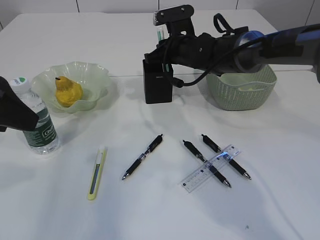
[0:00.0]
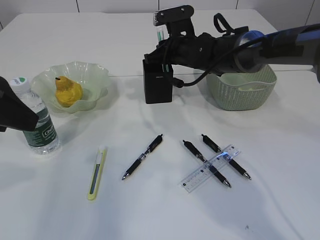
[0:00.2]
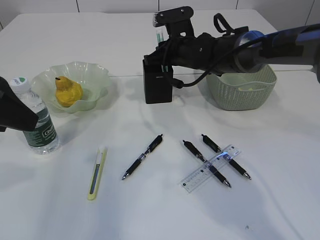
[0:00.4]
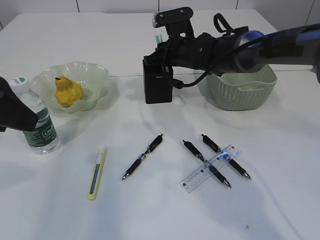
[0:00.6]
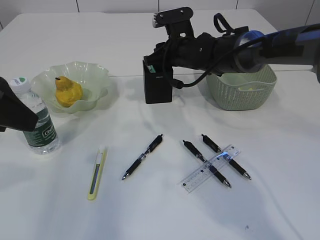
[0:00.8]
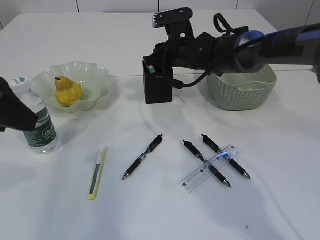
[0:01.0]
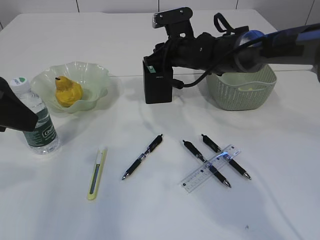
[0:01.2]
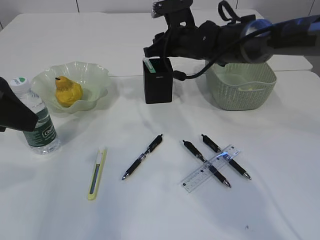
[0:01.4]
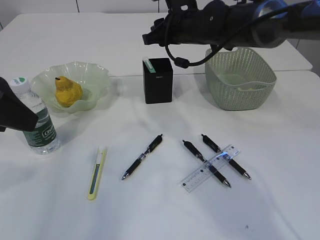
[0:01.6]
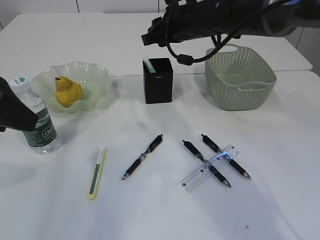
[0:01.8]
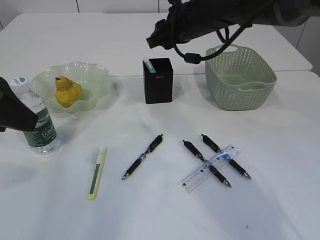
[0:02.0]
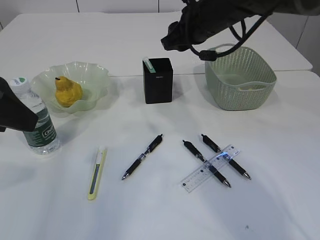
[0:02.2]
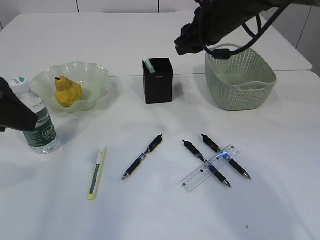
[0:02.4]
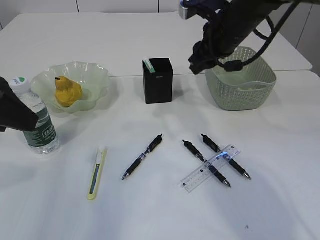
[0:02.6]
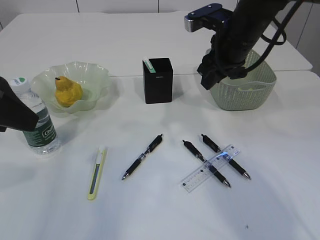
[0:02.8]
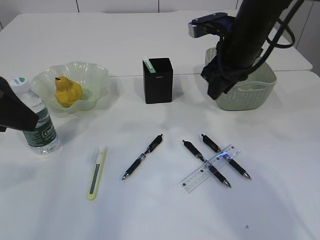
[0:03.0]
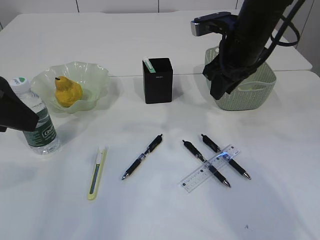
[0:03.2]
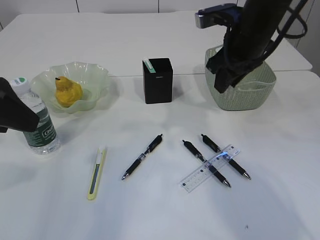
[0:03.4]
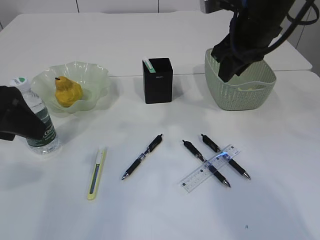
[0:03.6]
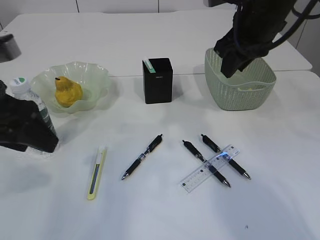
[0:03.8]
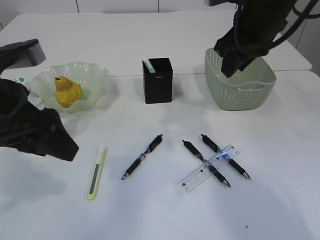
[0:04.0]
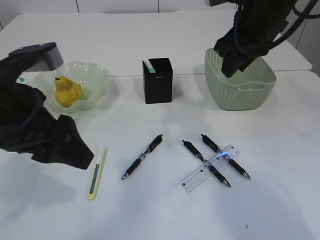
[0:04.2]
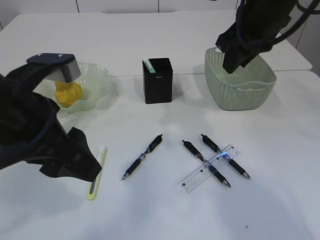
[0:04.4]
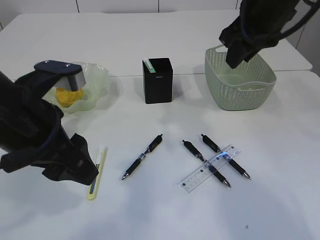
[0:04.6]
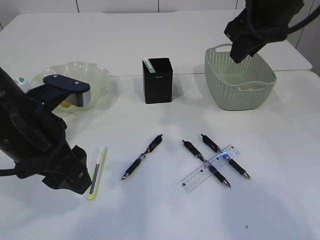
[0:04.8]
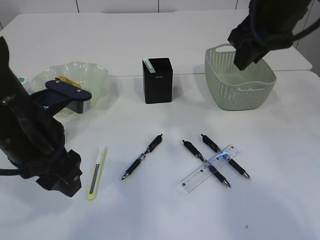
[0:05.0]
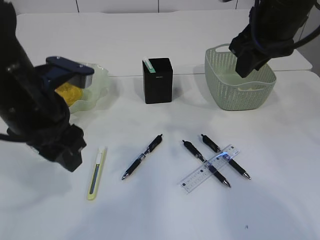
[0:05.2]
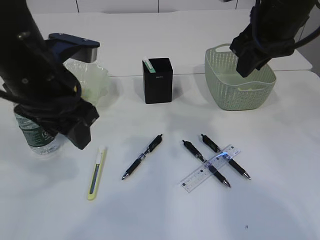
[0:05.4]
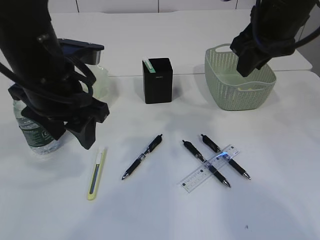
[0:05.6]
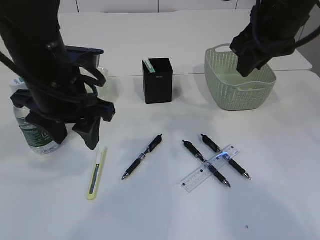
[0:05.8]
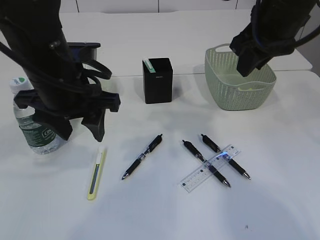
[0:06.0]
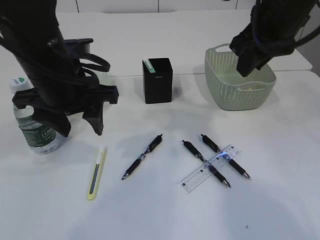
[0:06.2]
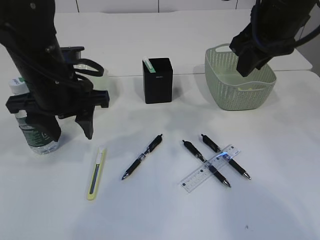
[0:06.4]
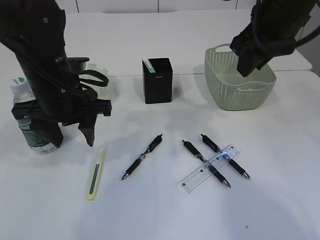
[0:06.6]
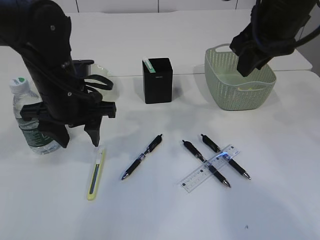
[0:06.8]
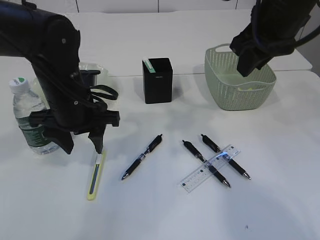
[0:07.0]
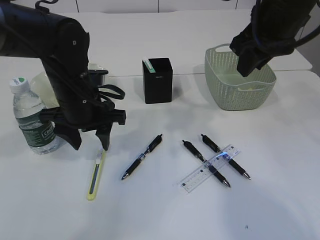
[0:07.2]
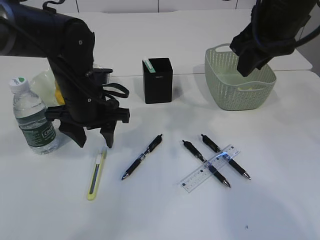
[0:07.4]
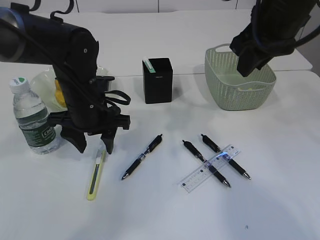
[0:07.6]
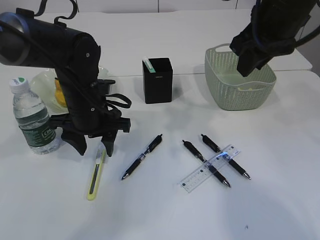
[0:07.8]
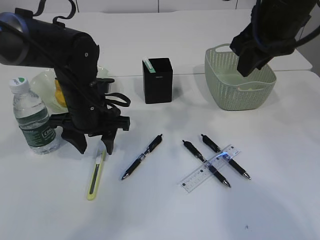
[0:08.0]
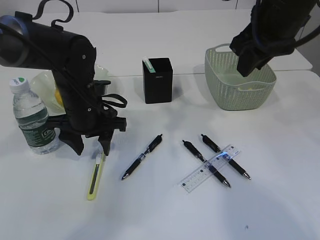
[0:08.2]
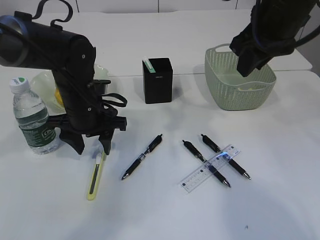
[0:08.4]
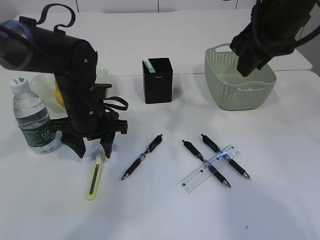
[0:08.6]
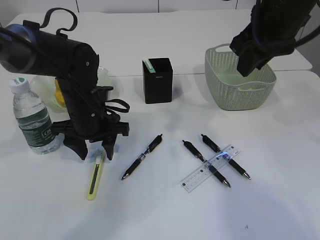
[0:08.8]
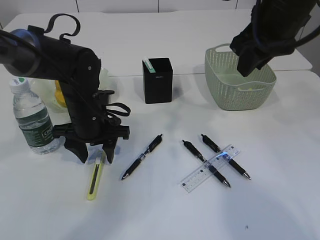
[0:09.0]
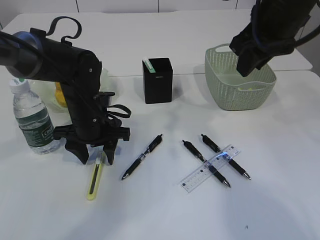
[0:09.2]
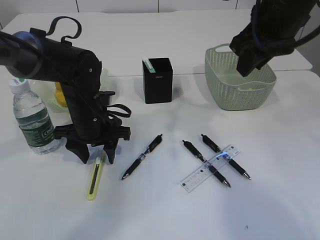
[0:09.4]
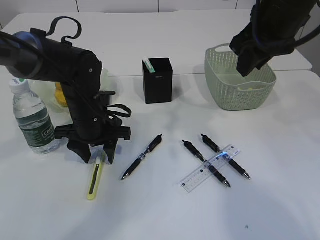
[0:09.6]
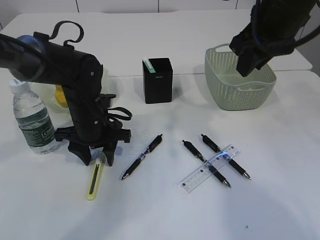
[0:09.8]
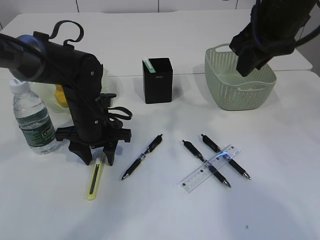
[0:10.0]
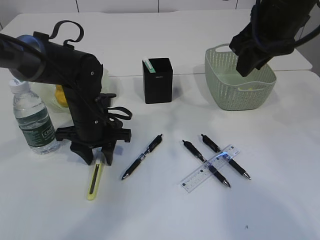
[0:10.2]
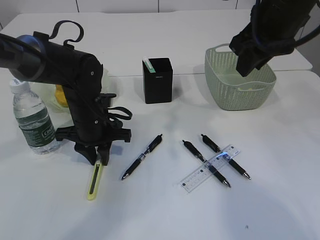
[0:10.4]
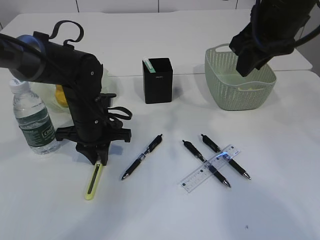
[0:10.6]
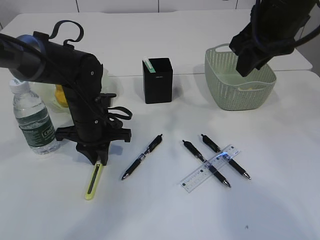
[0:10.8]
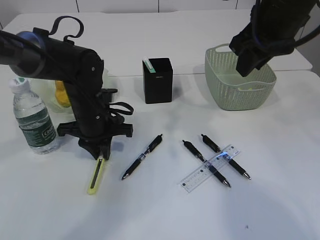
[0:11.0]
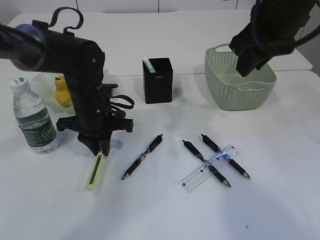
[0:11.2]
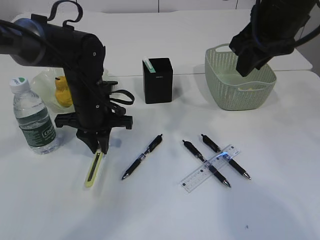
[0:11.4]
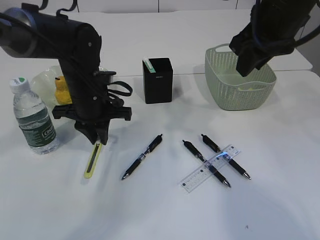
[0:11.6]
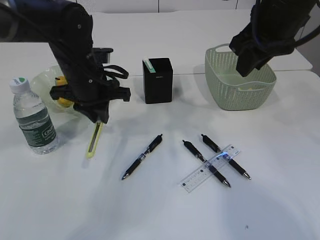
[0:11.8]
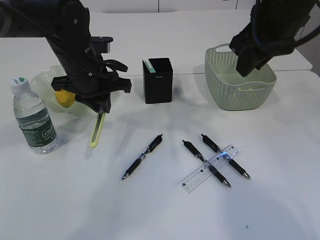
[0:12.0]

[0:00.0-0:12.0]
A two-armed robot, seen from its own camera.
Step, 0:00.0 to 0:02.2: Place the blue knife into the pen holder.
Step, 0:02.4 to 0:11.6: pick up the yellow knife.
0:00.0 to 0:01.6: The right gripper heads upward, covering roughly 5 cm.
0:01.6 to 0:03.0: The right gripper is displaced to the right and backward by about 10 cm.
0:03.0 to 0:04.4: The left gripper is displaced to the right by about 10 cm. The right gripper travels upward by about 5 cm.
0:04.4 to 0:06.0: The left gripper heads forward, covering approximately 10 cm.
0:06.0 to 0:07.6: The left gripper moves downward and forward, some 10 cm.
0:07.6 to 0:09.0: The grippers move only a little.
0:09.0 to 0:10.4: The left gripper closes.
0:10.4 to 0:12.0: The left gripper moves upward, roughly 10 cm.

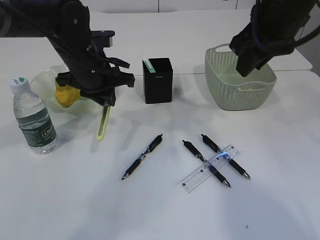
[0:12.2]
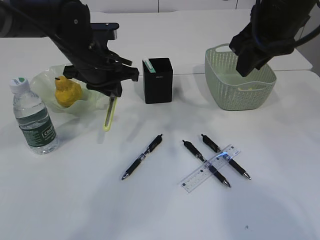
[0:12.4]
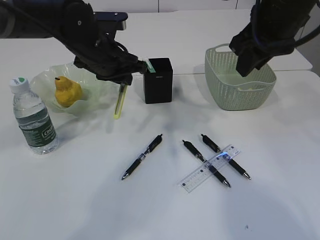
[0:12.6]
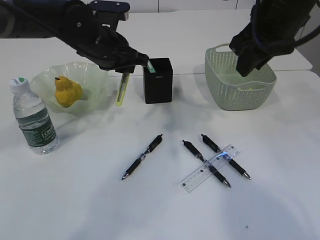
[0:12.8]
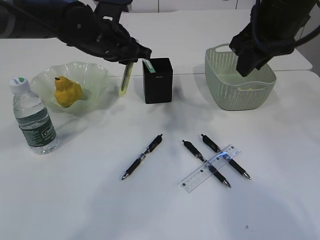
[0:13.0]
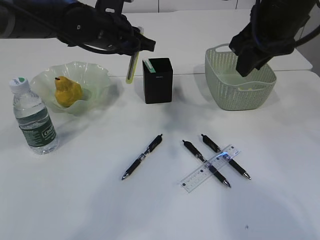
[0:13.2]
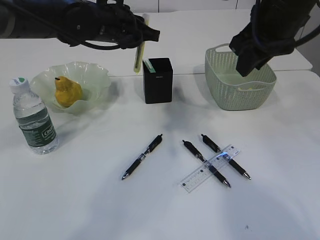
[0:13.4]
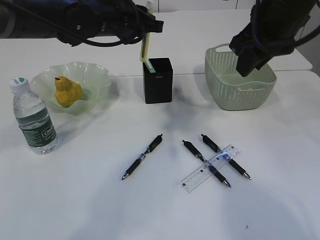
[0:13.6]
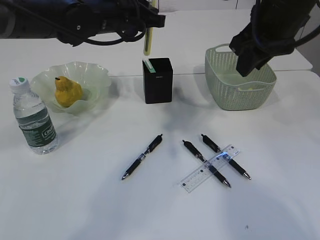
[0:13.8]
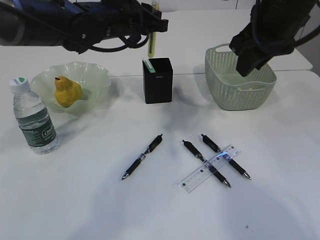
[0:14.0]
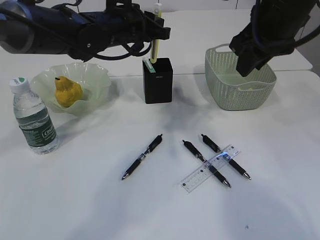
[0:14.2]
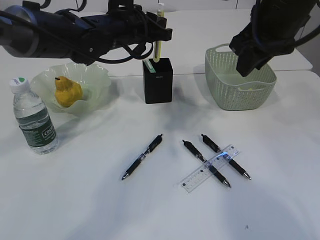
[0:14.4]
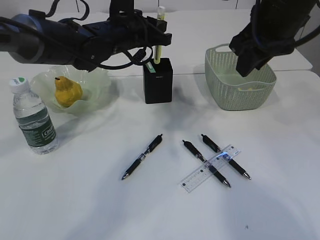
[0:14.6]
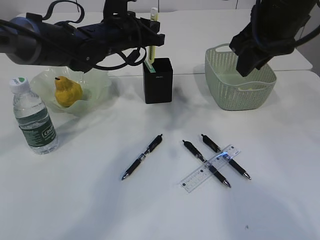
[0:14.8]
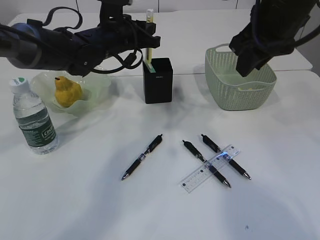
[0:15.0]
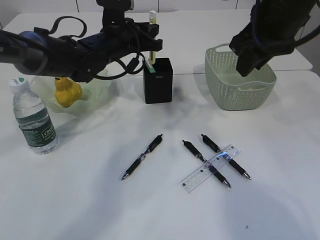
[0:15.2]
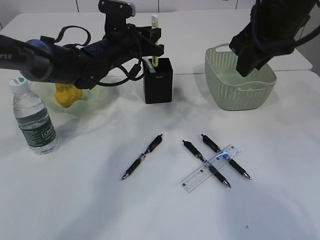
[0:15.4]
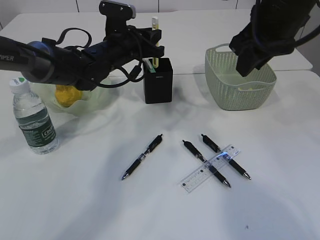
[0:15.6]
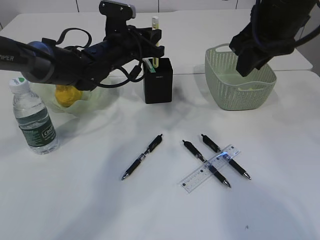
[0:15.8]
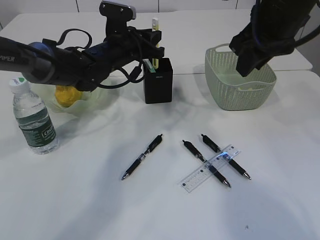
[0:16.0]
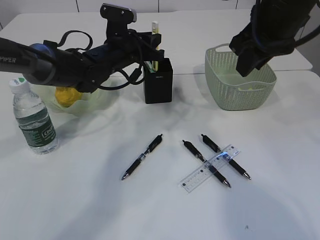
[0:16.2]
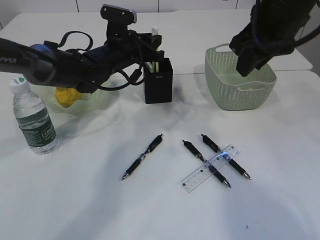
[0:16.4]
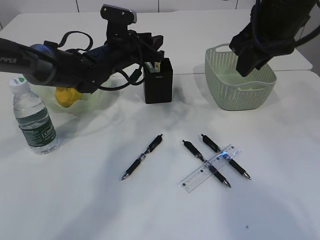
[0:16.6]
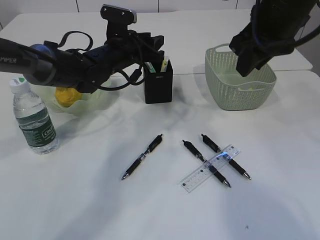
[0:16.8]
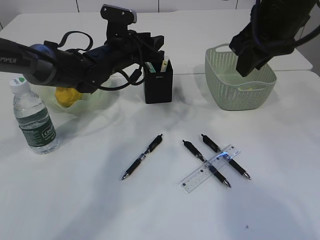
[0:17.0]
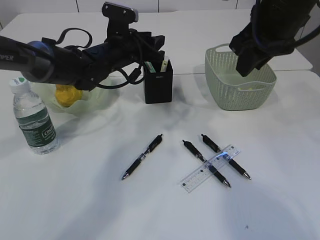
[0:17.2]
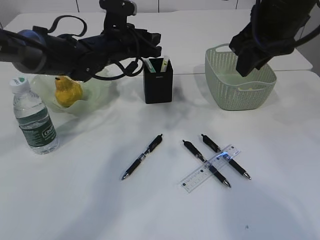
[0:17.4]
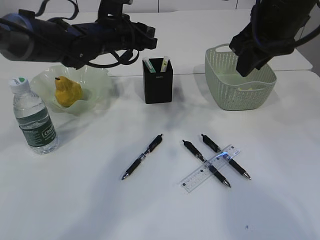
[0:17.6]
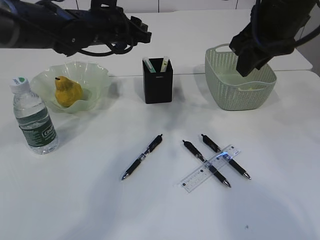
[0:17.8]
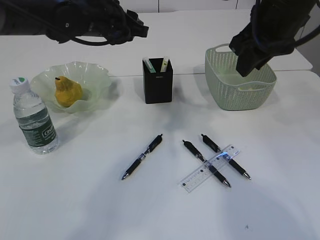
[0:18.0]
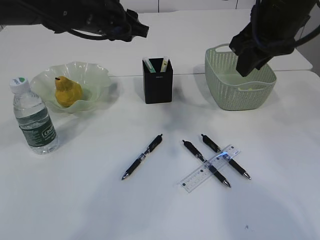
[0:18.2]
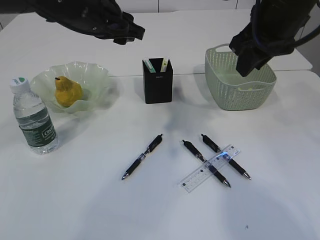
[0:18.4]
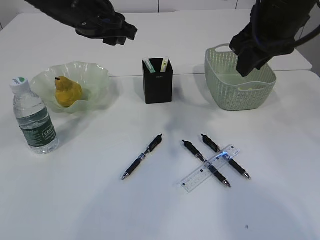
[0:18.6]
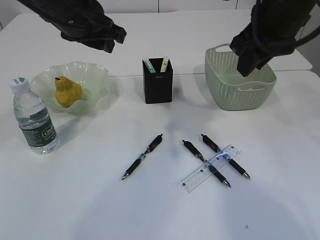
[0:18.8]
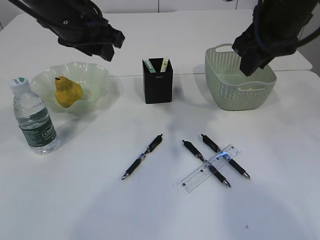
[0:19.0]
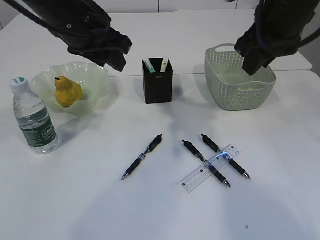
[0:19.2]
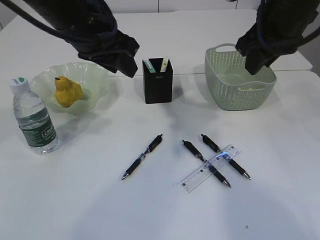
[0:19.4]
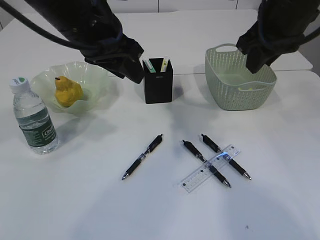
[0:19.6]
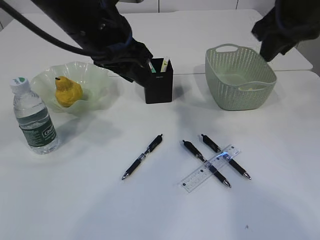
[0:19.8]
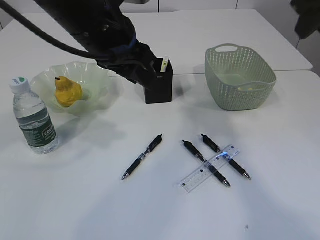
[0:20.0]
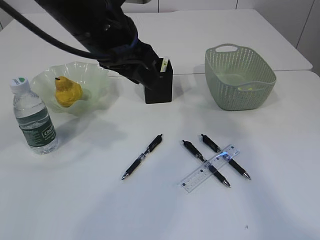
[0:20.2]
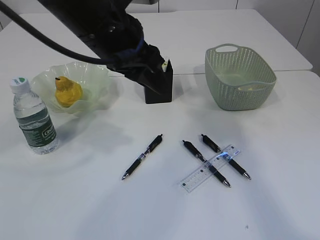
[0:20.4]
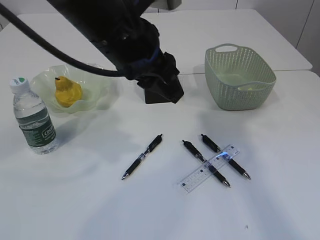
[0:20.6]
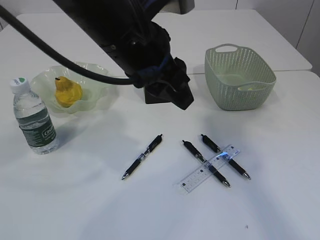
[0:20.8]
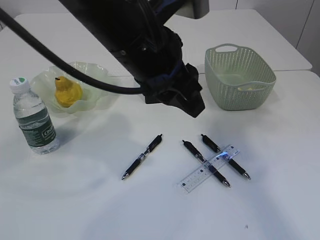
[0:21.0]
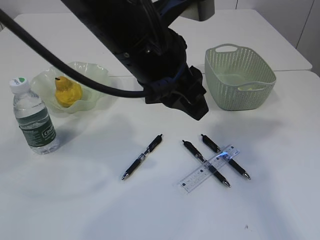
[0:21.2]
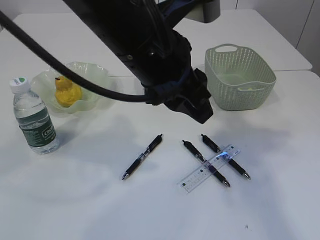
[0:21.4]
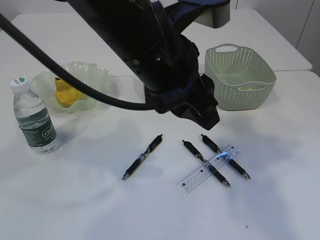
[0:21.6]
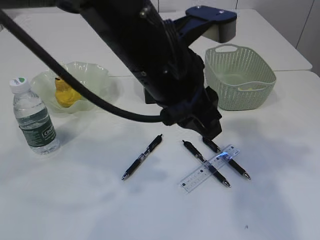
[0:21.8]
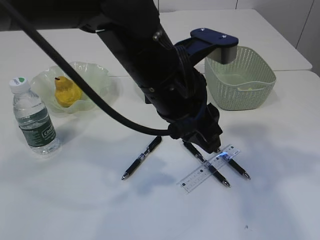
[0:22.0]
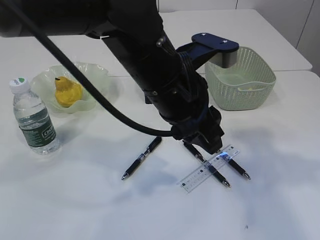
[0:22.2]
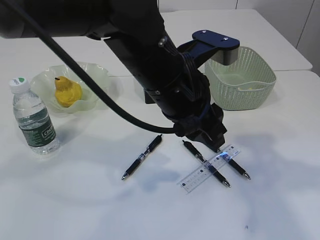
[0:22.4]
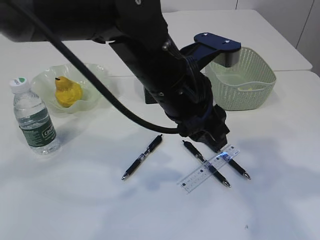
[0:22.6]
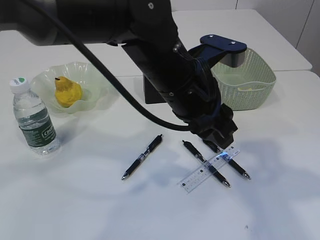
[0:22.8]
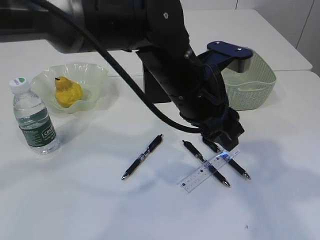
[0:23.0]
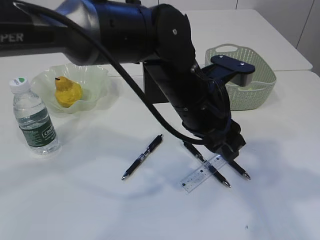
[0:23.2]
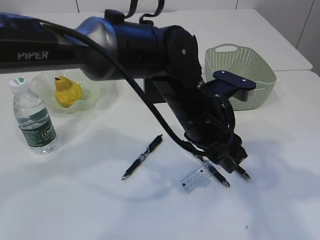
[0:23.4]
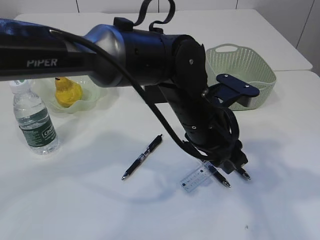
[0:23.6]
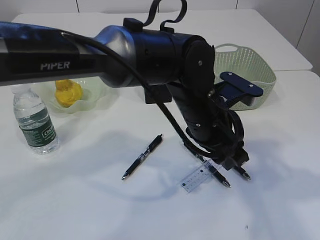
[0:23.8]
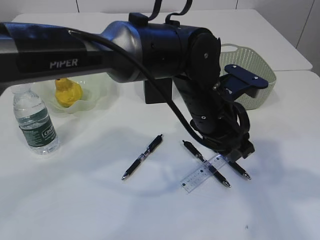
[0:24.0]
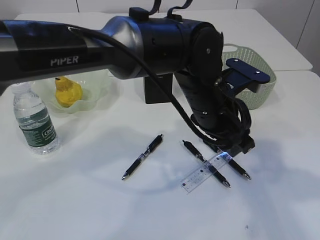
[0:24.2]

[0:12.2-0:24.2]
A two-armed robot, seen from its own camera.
Step, 0:12.2 to 0:17.6: place the yellow knife into the pen holder.
0:12.2 to 0:13.8: The left gripper is displaced upward by roughly 5 cm.
0:13.8 to 0:15.2: The left gripper shifts roughly 5 cm downward.
0:15.2 to 0:16.6: The grippers stay close to where they were, moving slightly.
0:16.6 to 0:18.2: The left gripper moves upward, roughly 10 cm.
0:18.2 to 0:19.8: The left gripper heads backward, covering approximately 10 cm.
0:19.8 to 0:21.2: The right gripper shifts roughly 15 cm backward, to the right and upward. Meanwhile the left gripper heads to the right and backward, covering roughly 10 cm.
0:21.2 to 0:22.6: The left gripper goes about 5 cm downward, while the right gripper moves backward and downward, some 10 cm.
0:22.6 to 0:24.2: The left gripper goes roughly 10 cm to the right and downward.
